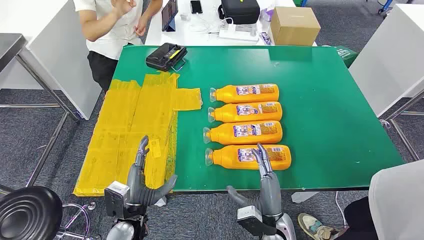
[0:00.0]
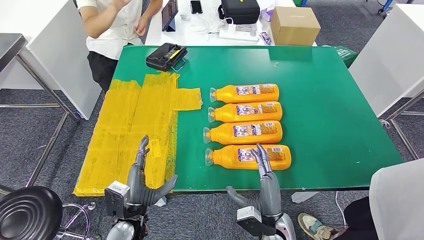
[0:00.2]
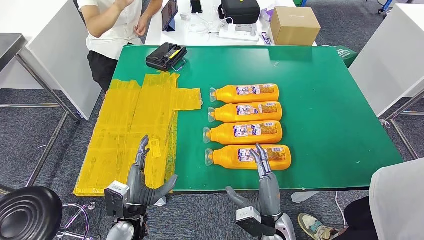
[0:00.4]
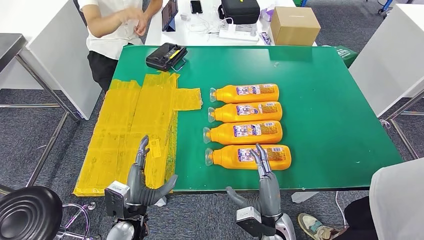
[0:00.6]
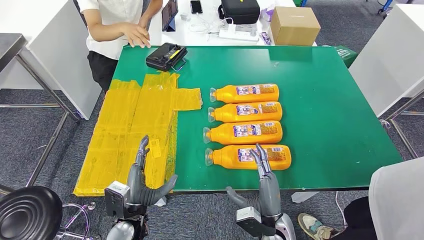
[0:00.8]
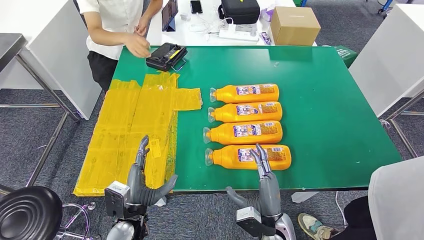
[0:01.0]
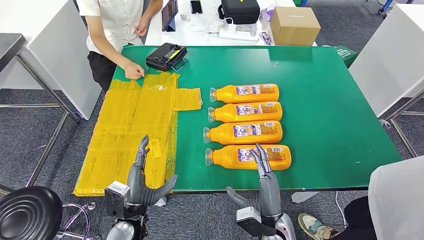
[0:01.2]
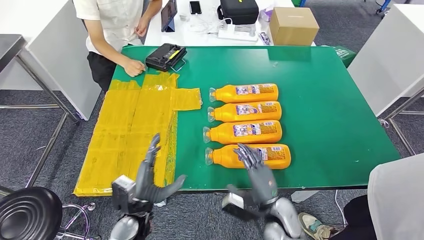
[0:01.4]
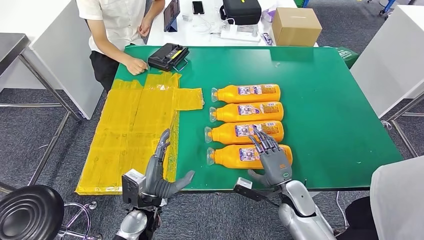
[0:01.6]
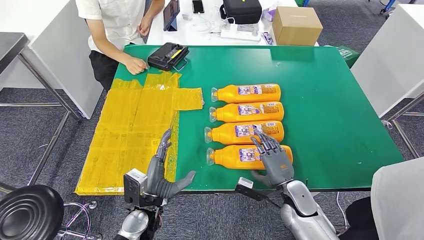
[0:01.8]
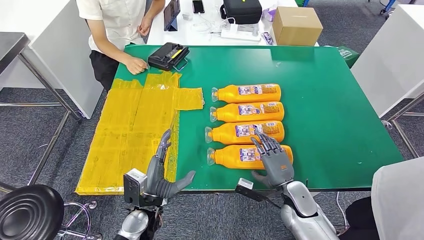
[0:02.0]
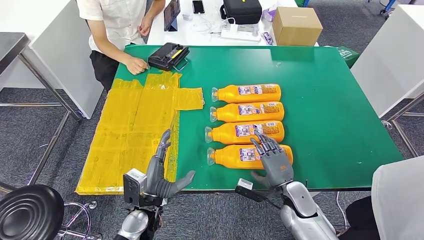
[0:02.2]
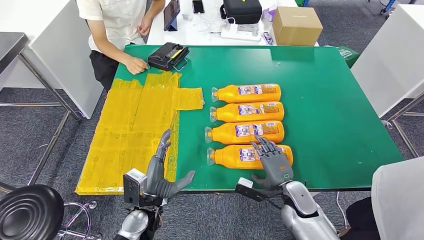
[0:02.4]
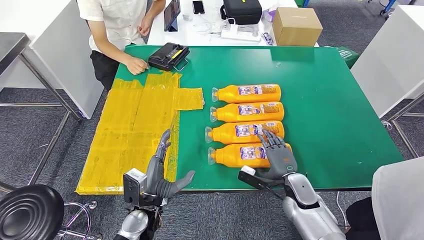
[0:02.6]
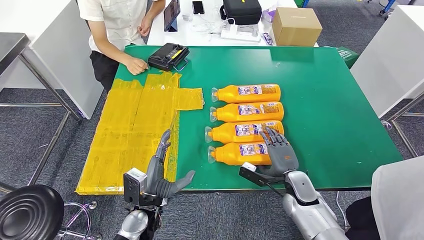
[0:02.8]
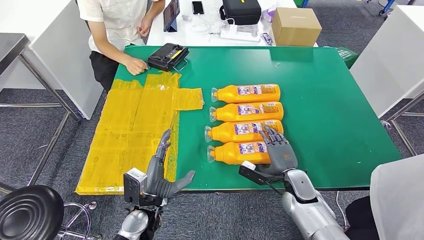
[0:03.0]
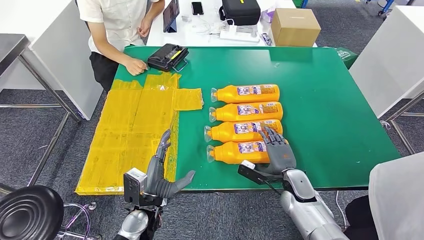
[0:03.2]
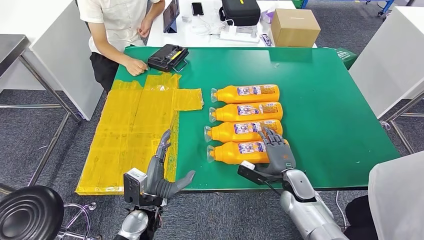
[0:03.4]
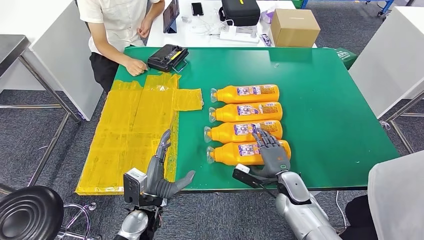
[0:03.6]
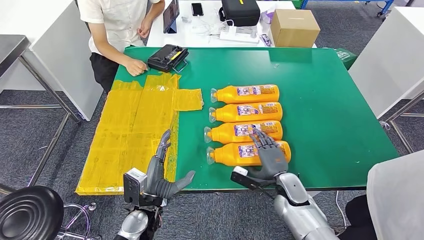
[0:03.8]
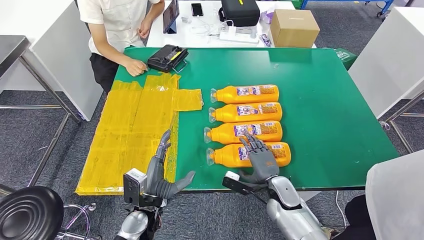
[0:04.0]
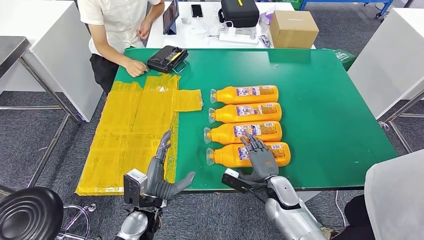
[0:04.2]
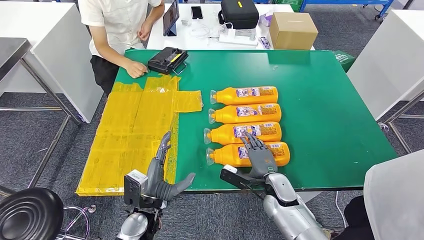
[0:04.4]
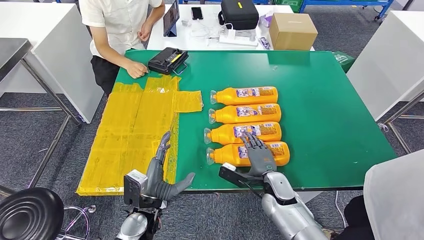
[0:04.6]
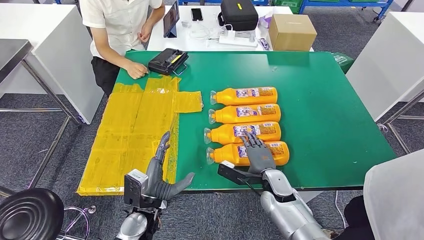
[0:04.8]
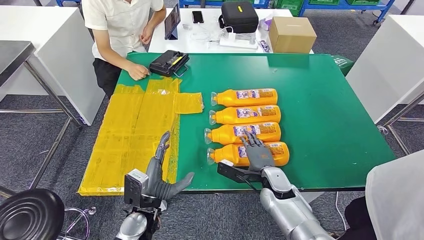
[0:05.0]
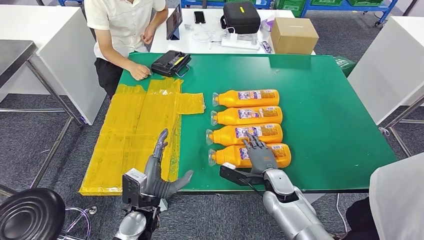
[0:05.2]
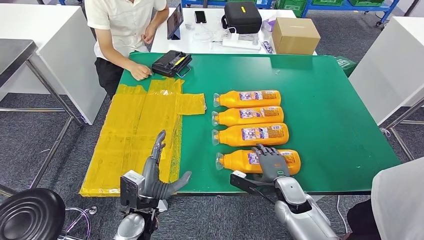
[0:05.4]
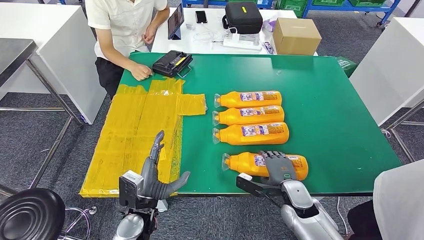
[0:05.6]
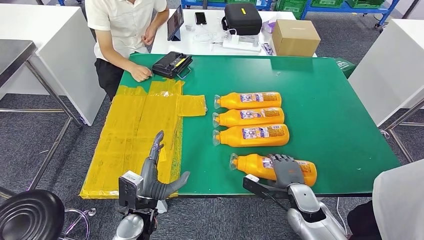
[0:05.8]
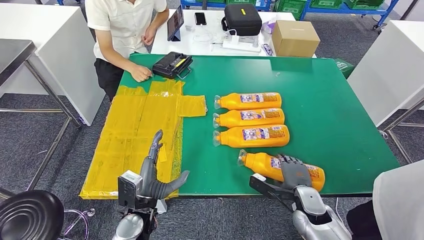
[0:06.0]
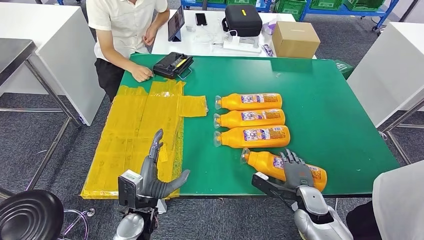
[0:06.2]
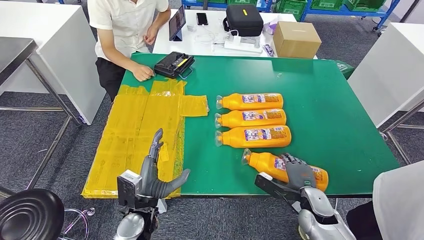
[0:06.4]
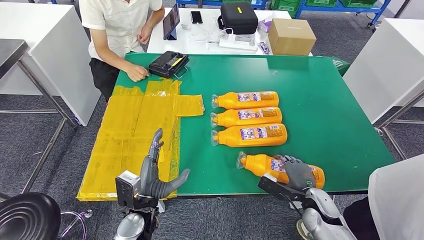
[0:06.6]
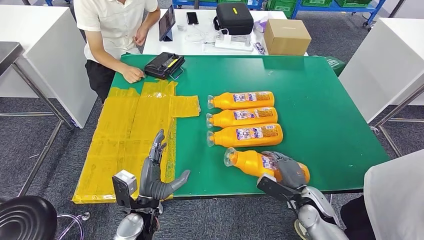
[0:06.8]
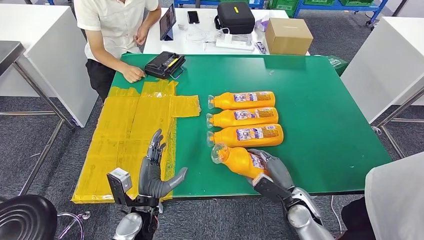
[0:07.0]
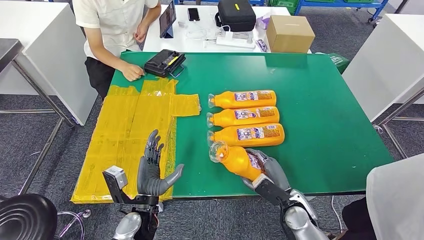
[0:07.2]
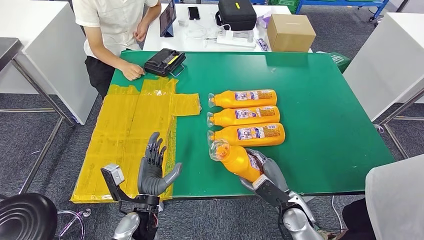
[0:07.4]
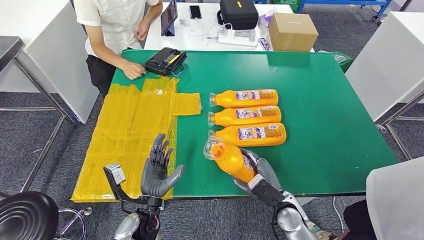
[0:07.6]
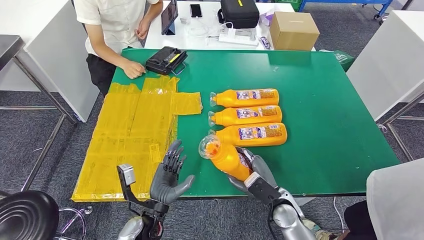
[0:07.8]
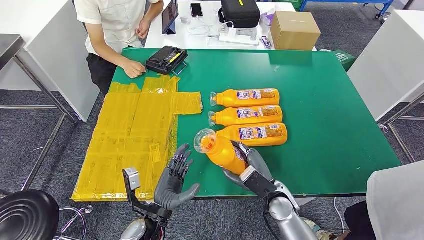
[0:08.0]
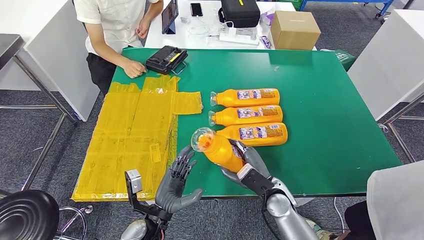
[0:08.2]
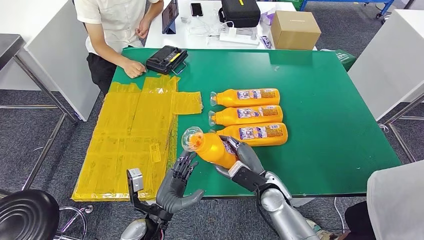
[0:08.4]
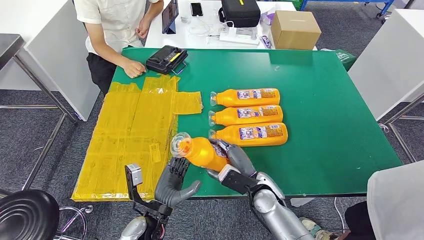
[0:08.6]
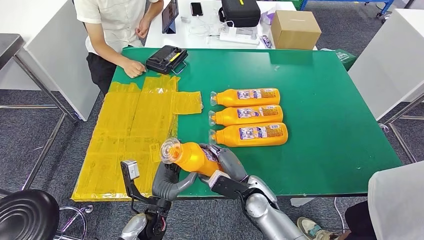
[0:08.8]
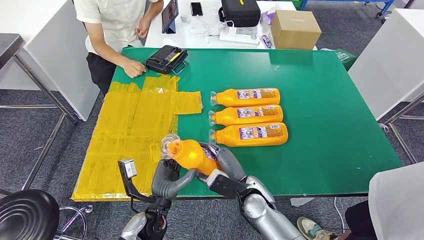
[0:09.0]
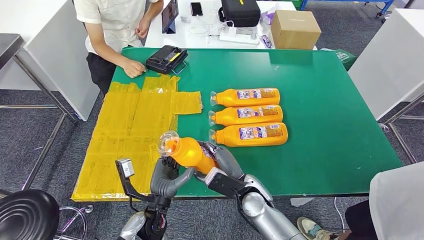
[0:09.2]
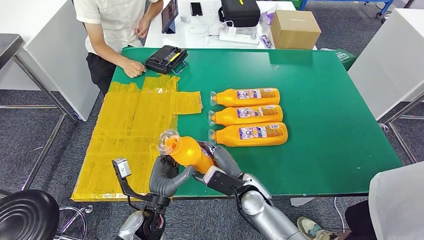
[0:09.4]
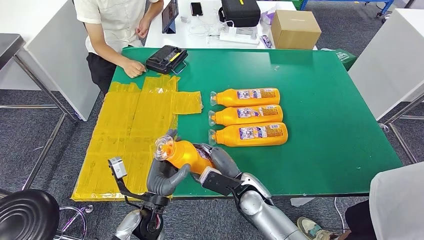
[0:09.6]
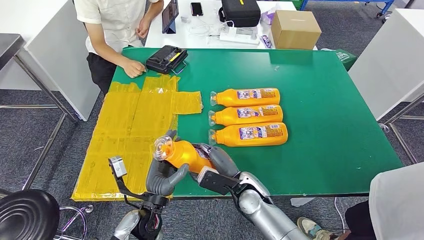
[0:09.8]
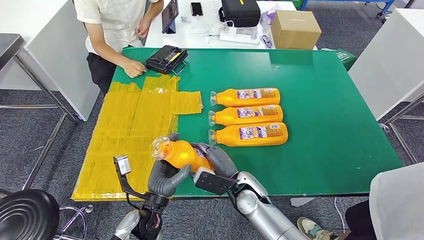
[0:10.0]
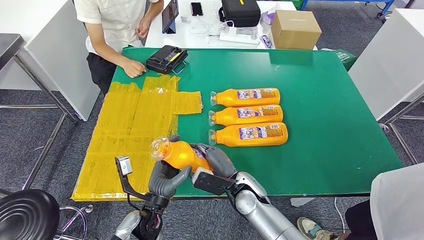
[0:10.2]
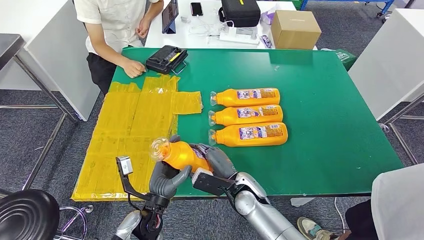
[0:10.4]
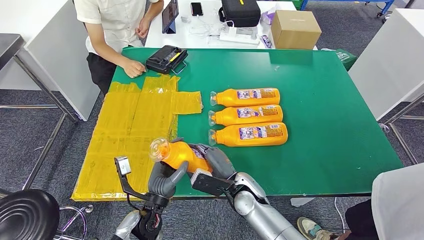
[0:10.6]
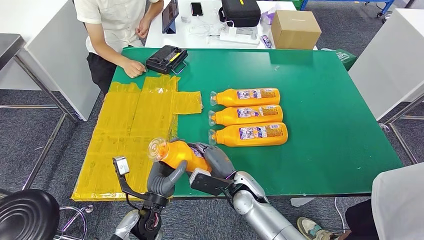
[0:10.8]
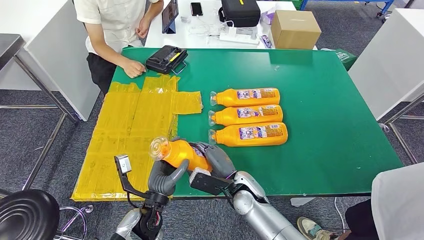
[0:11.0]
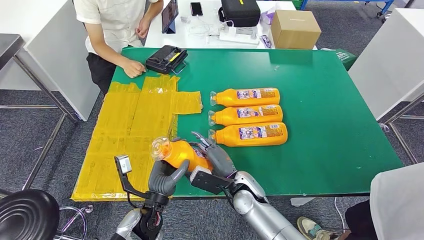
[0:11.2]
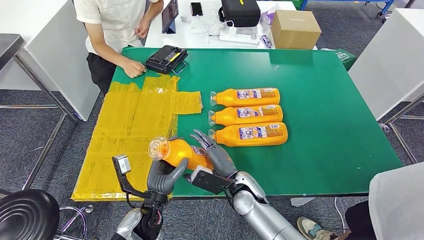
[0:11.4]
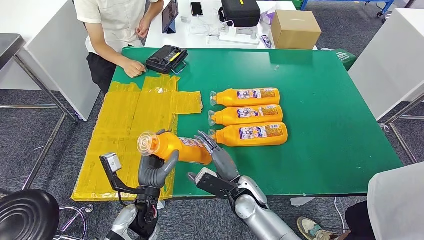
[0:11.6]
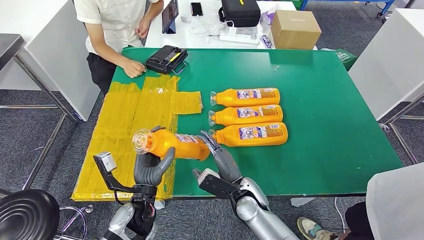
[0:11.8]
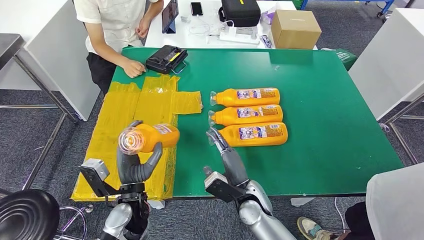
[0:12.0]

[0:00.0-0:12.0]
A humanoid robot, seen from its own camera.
Step, 0:00.0 to 0:07.4: Take the bottle from the table.
0:09.0 to 0:10.4: There are only small adjustments of the hands.

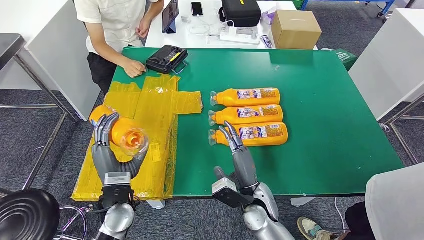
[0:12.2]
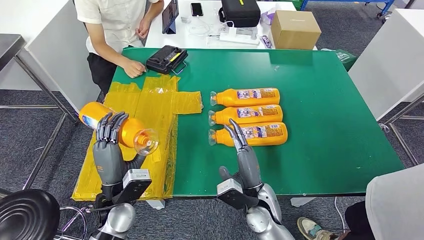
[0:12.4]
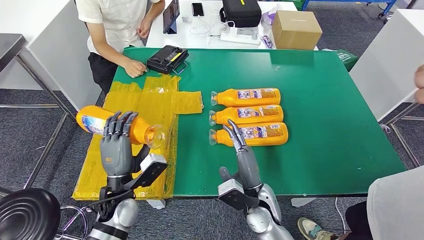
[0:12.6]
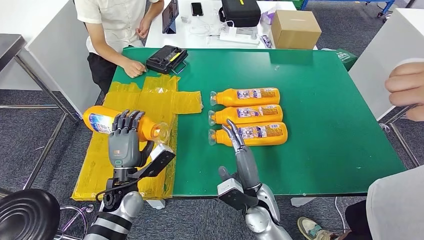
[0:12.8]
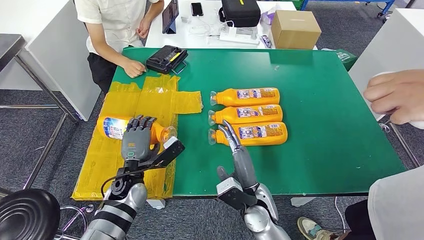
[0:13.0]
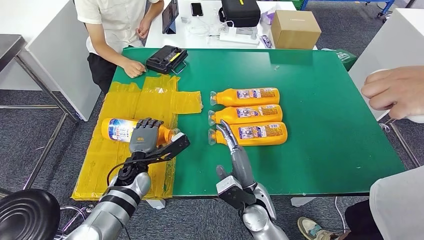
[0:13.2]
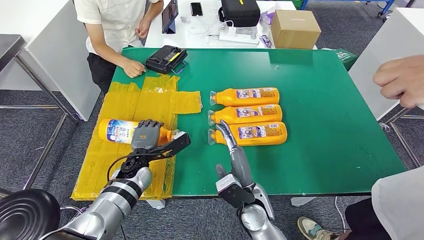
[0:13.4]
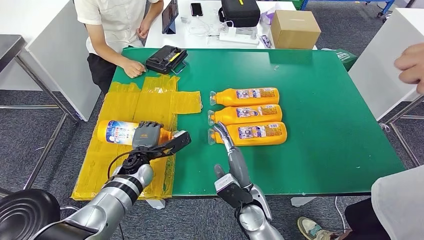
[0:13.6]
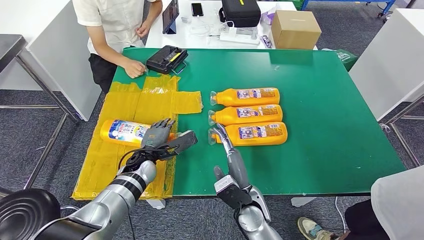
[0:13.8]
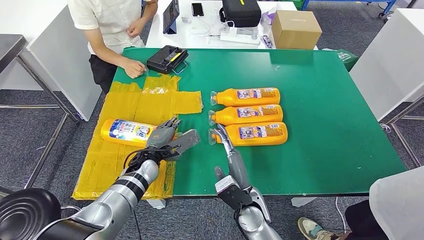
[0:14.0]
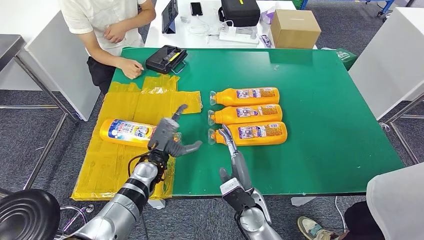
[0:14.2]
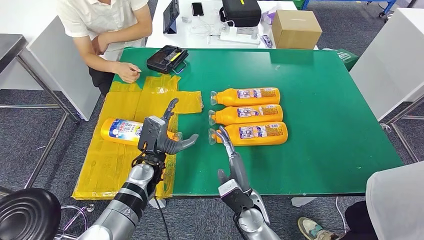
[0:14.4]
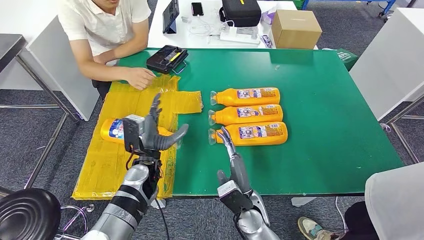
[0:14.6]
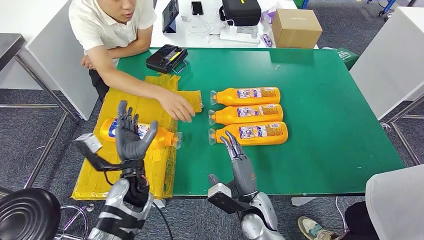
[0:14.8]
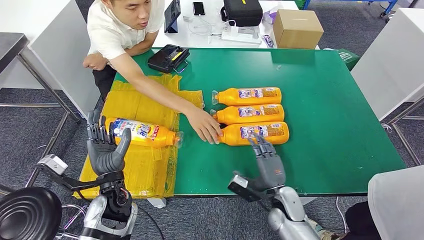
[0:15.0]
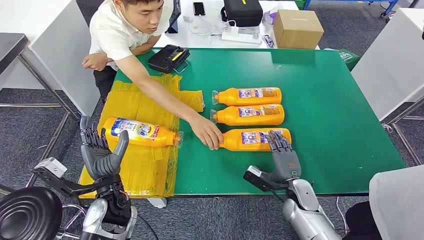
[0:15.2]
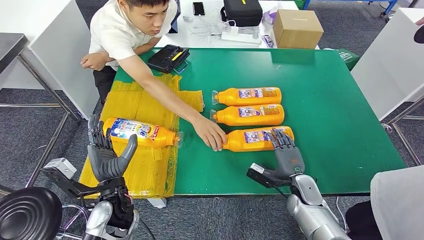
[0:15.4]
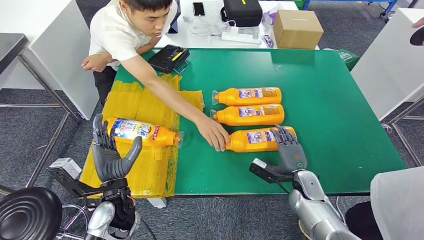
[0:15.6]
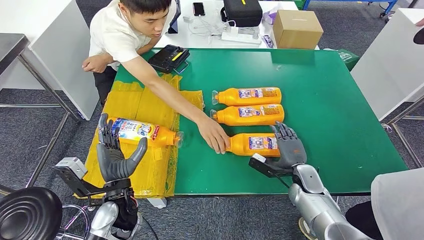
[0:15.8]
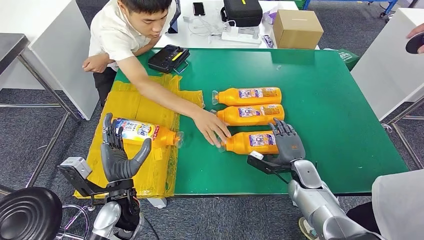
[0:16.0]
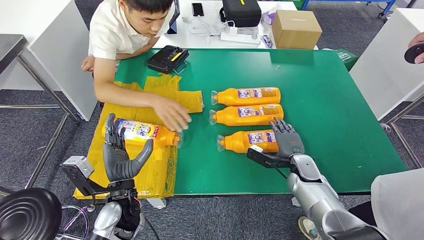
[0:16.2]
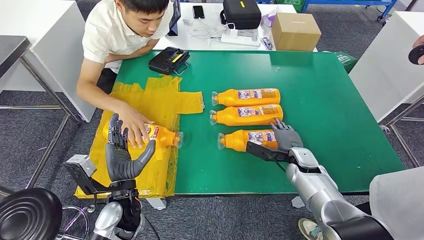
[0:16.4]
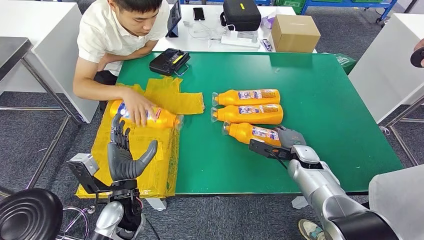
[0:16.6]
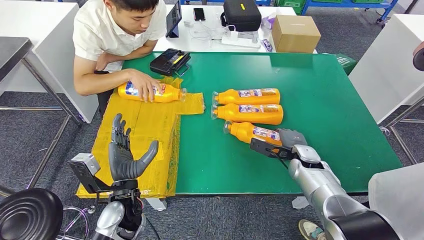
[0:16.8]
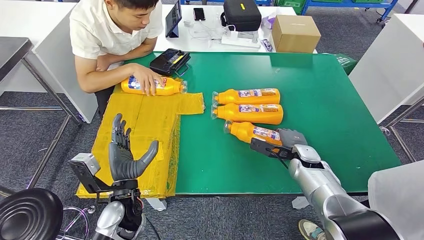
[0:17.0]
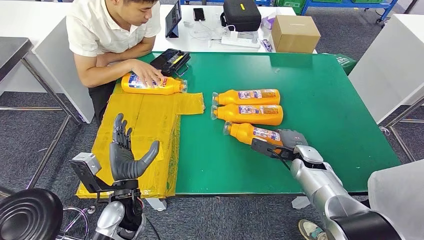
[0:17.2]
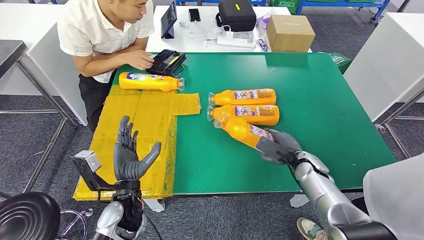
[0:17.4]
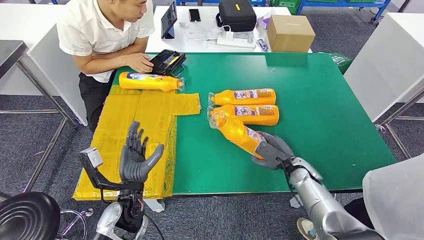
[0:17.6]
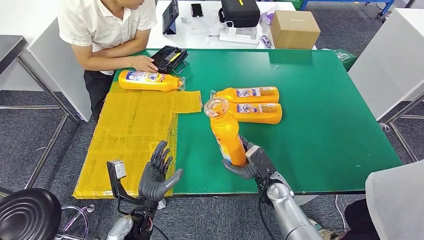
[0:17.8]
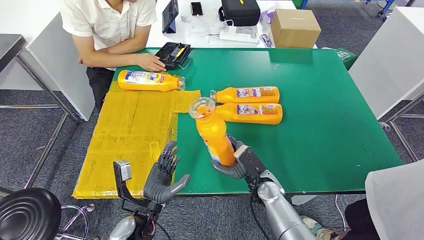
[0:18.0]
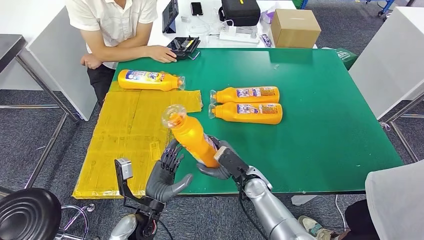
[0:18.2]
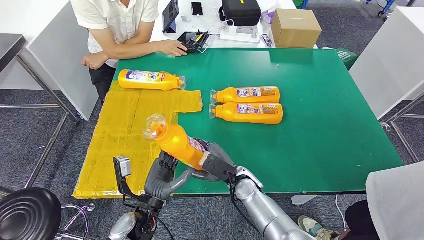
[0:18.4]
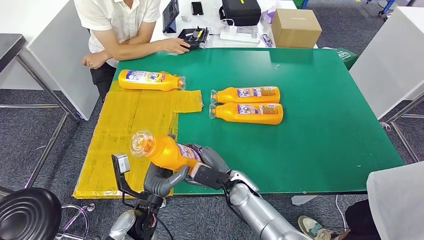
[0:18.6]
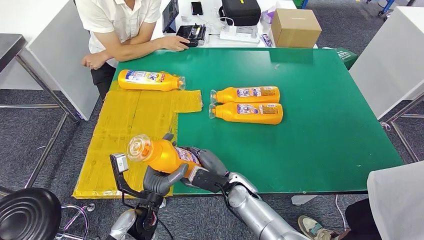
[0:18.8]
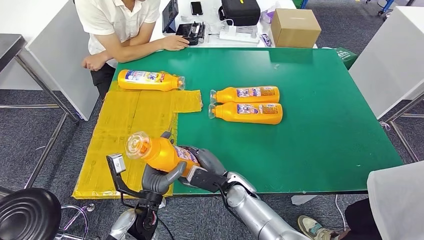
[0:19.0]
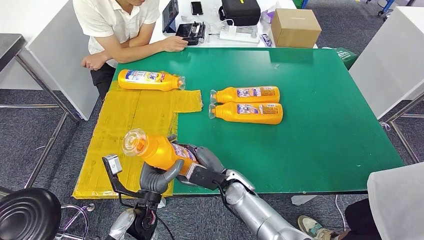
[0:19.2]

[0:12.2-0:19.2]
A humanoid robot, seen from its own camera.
Step, 0:12.2 to 0:14.6: Flip the bottle to face forward.
Step, 0:15.2 to 0:18.0: Pick up the bottle from the table.
0:12.2 to 0:13.6: The left hand travels forward by roughly 15 cm.
